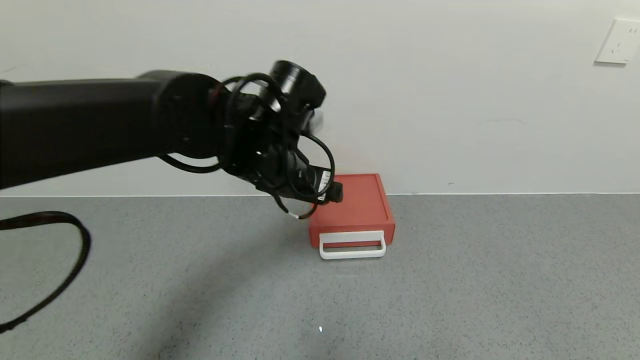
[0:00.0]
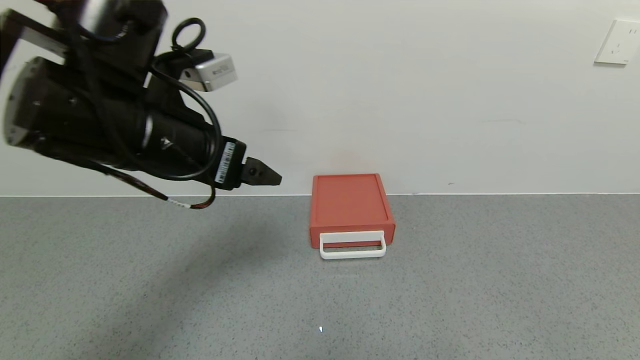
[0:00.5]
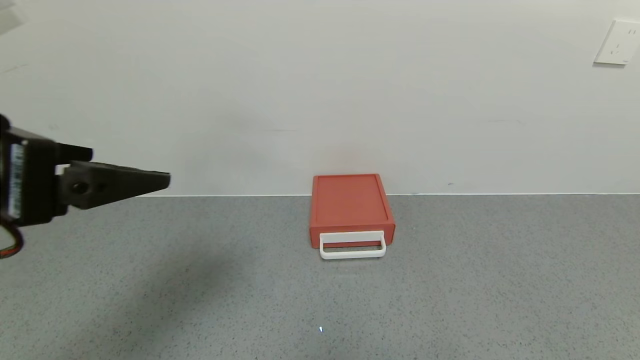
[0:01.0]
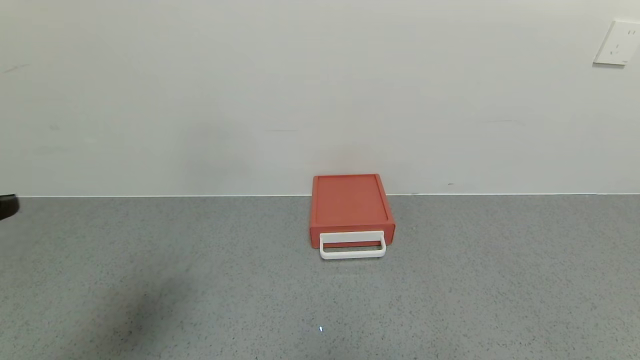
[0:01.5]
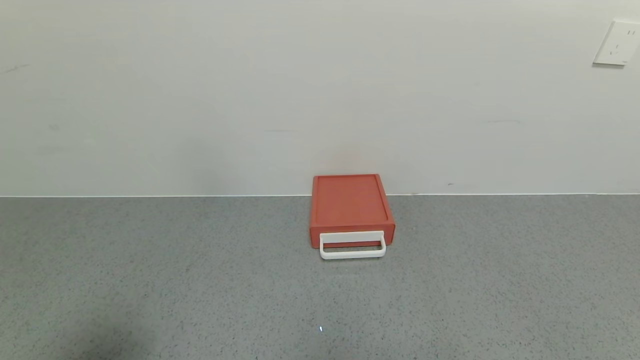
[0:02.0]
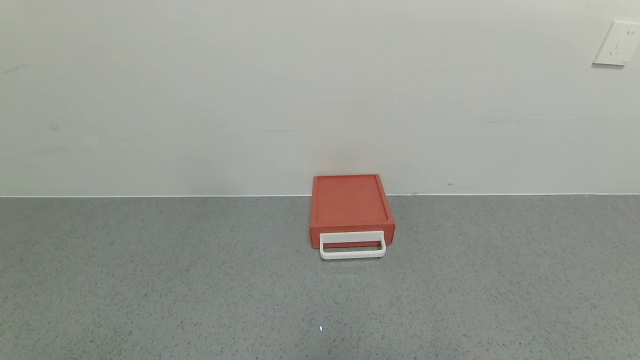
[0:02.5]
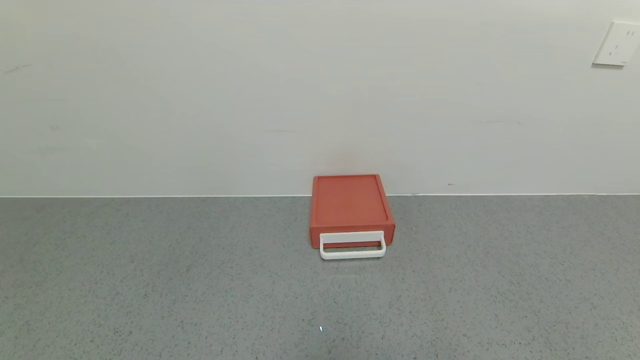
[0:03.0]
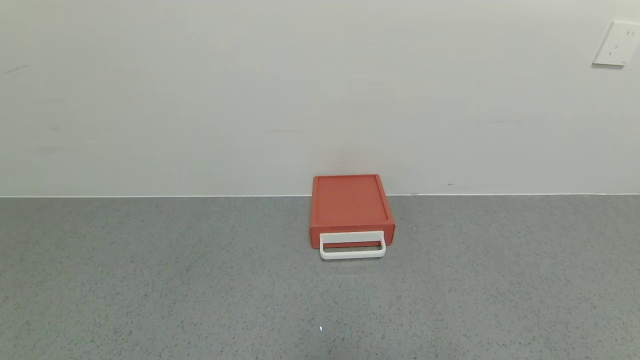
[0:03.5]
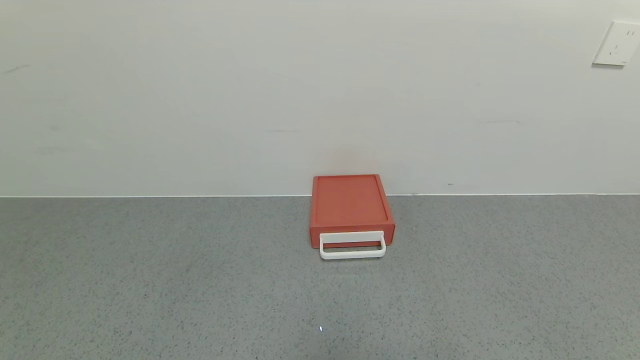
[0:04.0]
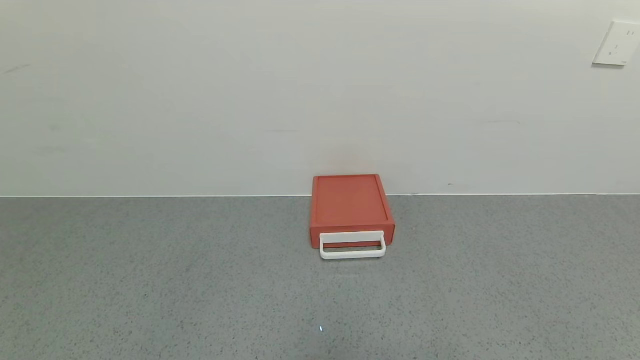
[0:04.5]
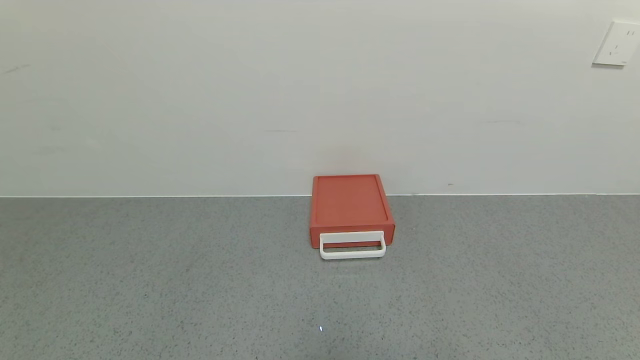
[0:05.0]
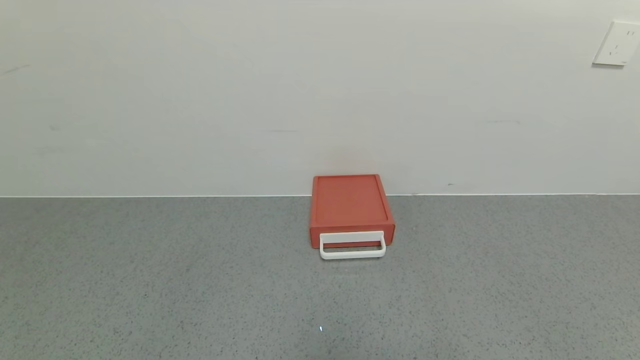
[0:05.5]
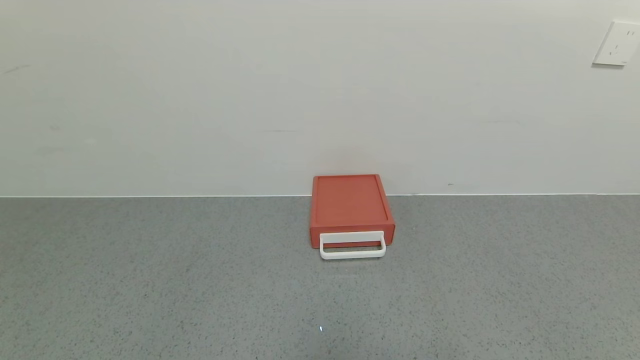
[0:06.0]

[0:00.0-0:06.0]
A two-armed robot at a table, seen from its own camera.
Task of the whole recording: use the gripper to open the drawer and close the red drawer.
0:00.0 to 0:02.0: The left gripper goes about 40 cm backward and to the left.
0:02.0 to 0:04.0: The left gripper is displaced downward by approximately 20 cm.
